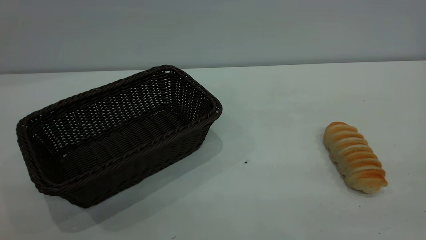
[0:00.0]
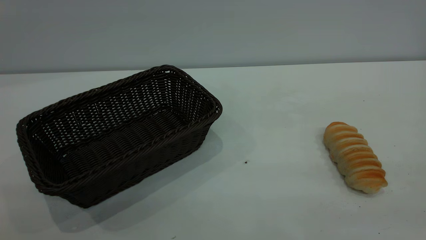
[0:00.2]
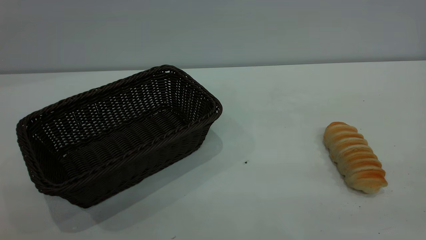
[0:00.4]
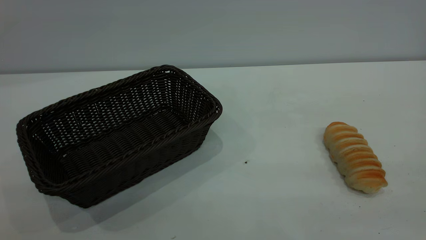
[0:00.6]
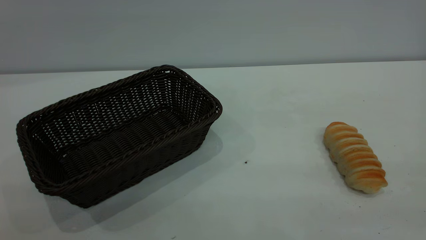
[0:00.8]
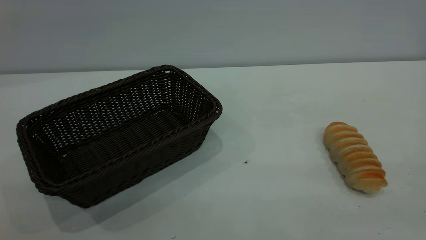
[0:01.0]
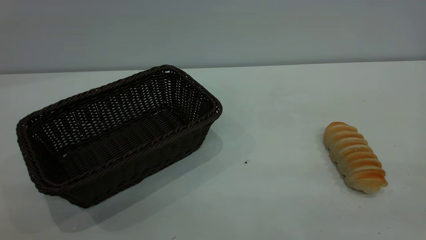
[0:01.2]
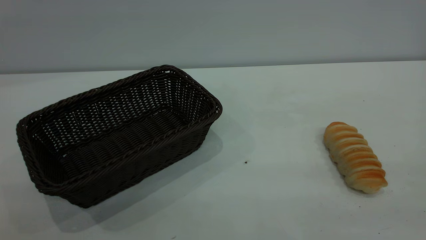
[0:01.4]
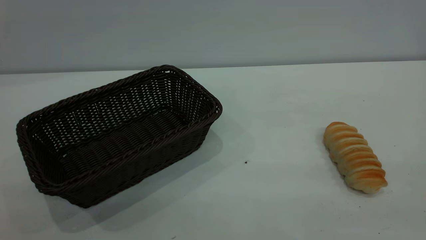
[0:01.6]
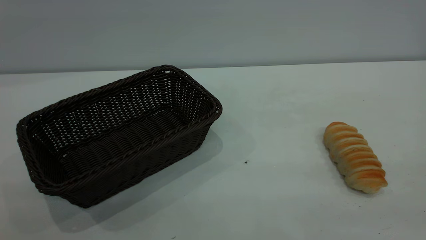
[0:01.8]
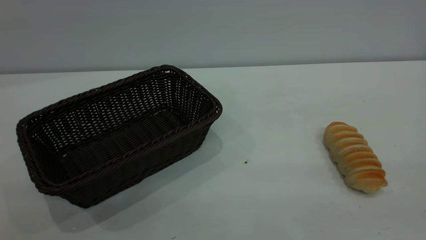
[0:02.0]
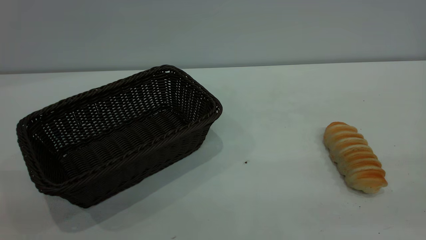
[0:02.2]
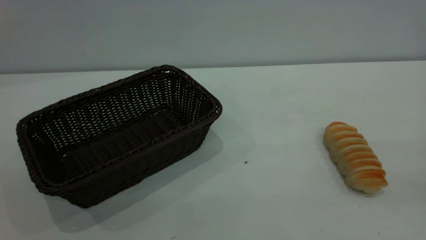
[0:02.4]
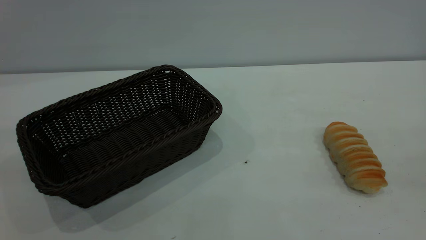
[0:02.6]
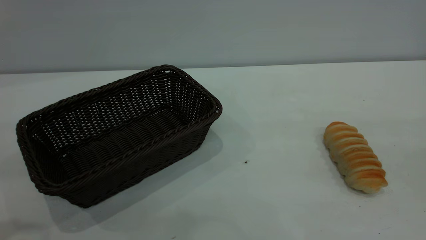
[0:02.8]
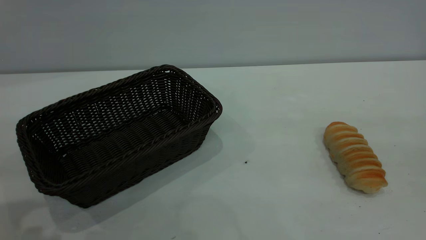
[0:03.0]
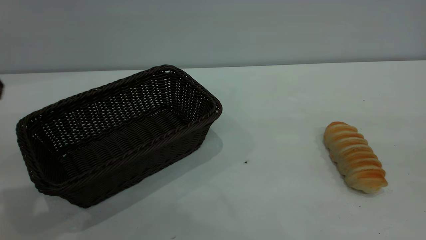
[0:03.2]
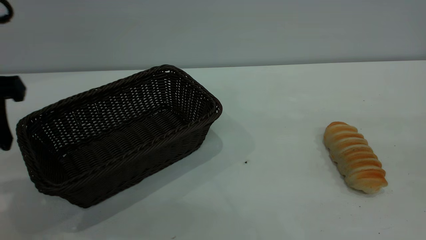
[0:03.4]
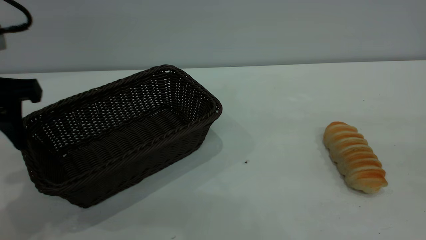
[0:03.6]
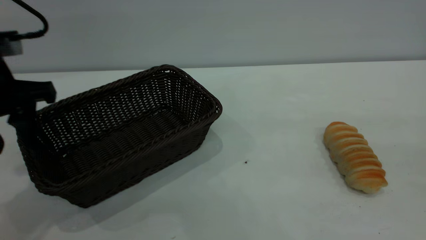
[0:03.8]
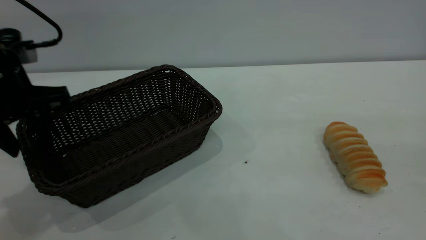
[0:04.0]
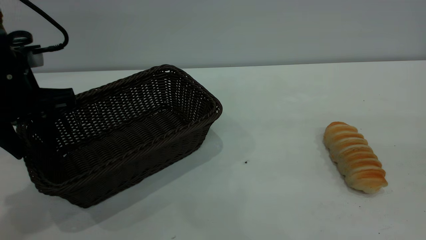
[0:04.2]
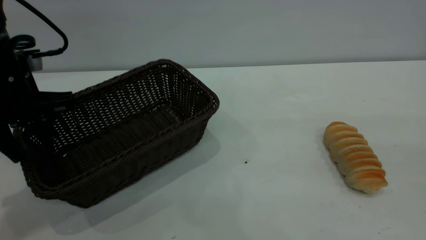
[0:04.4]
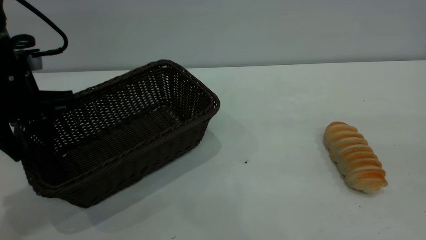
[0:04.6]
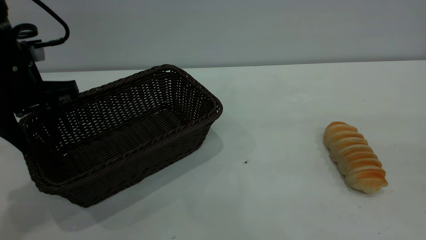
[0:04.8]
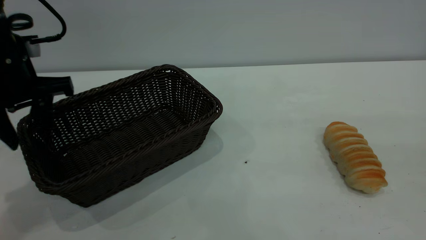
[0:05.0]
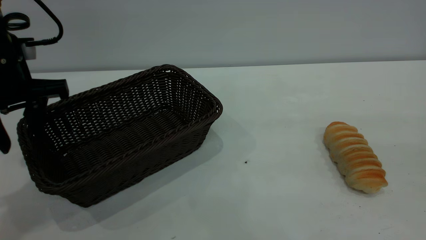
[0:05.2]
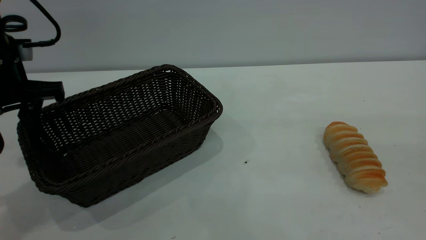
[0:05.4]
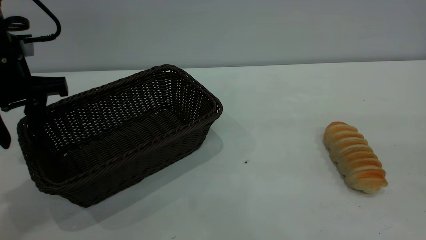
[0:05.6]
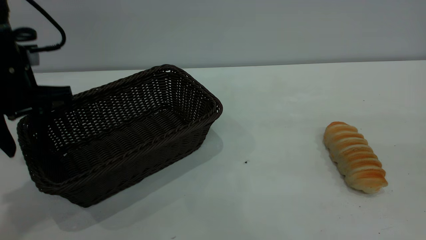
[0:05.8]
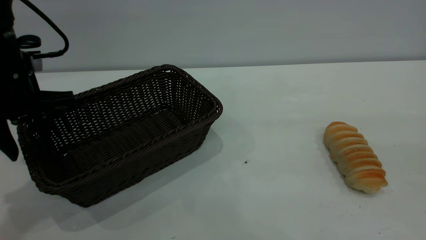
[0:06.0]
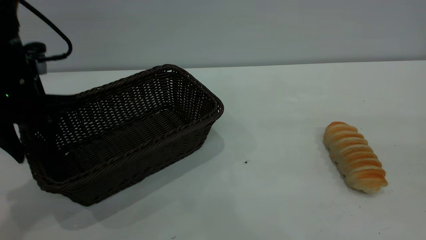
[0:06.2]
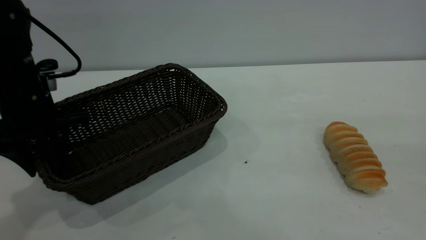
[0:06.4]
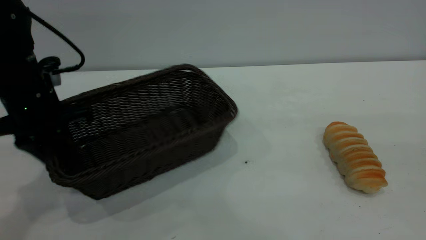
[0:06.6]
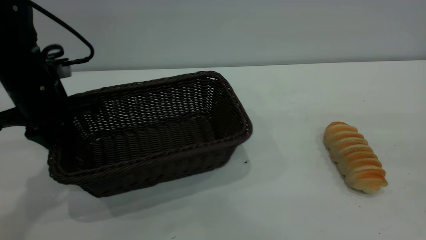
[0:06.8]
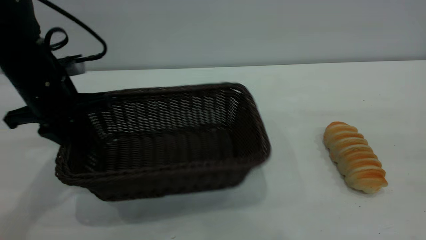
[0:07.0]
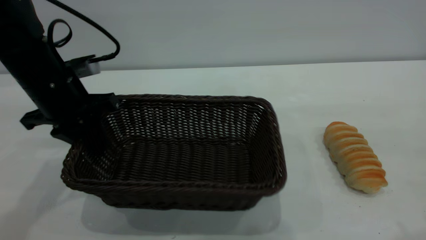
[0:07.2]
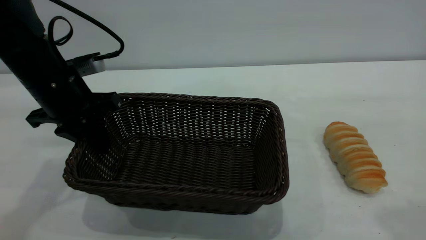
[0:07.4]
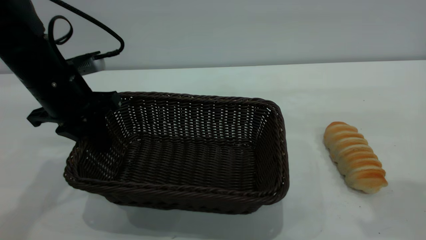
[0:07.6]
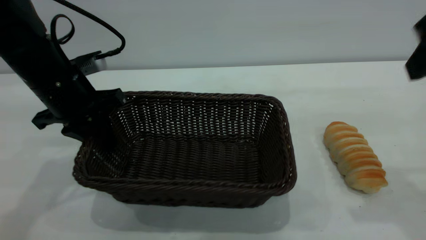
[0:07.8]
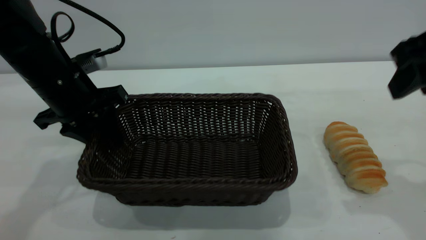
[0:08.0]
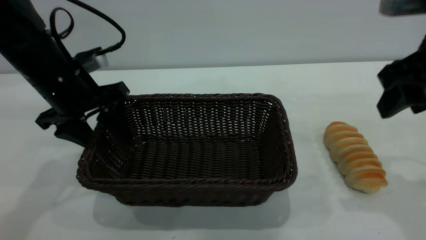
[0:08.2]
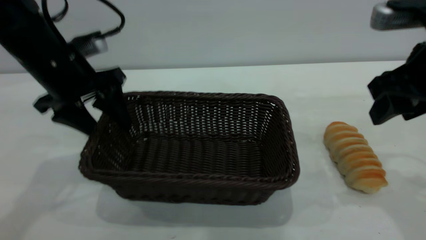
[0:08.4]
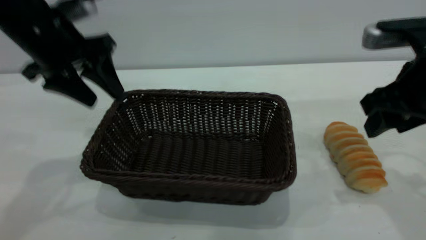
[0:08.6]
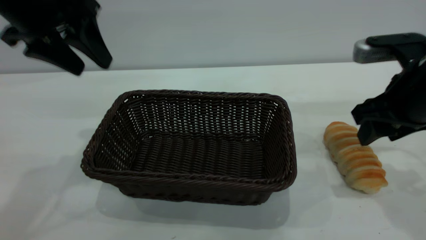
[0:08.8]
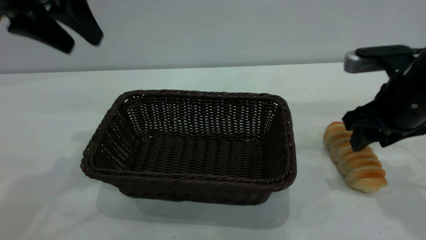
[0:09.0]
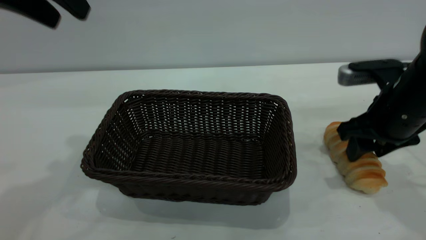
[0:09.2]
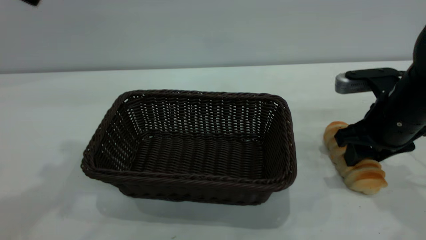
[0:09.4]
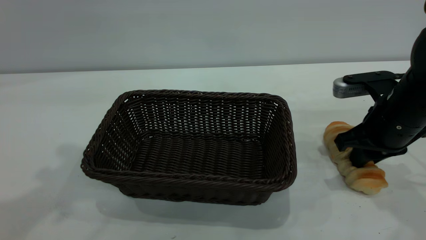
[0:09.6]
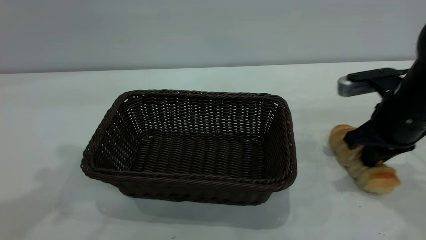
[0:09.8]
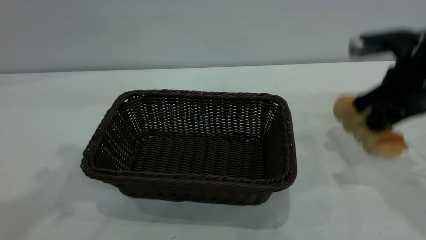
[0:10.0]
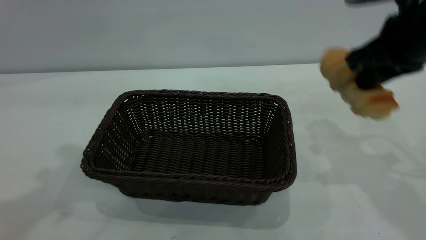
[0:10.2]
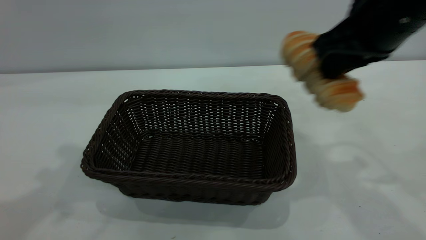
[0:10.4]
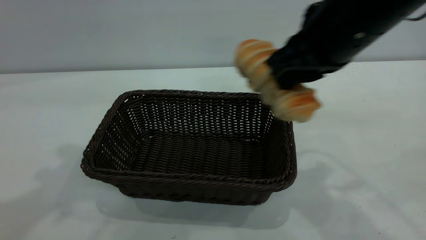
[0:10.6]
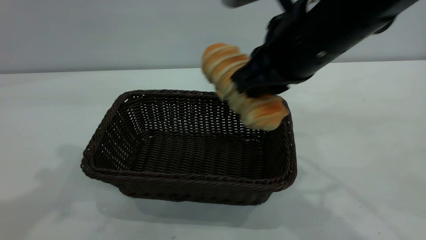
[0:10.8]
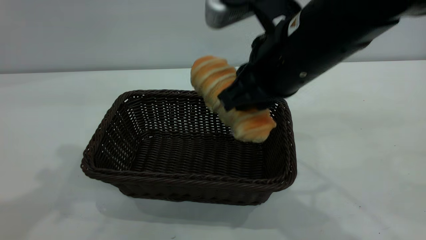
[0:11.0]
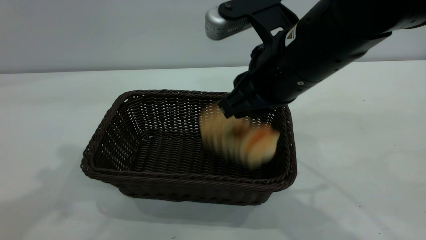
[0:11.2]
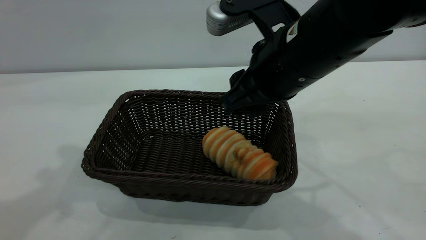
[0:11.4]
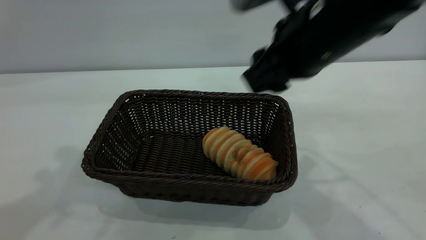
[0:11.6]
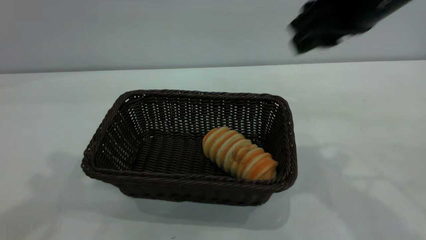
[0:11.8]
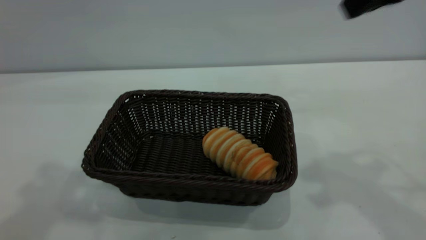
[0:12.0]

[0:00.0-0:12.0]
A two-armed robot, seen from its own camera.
Task of the whole recording: One hand grasps the black basket and places it in the middle of the table, while the other hand picks up the long bread and puts it into the black basket.
Step, 0:00.0 to 0:08.8: Move the basket to the center of view.
Step, 0:10.2 to 0:11.6: place the bread into the basket.
0:00.0 to 0:01.6: Neither gripper changes place.
0:03.0 to 0:04.4: The left gripper is displaced forward and downward by some 15 cm.
0:04.4 to 0:06.0: The grippers move only a little.
0:06.0 to 0:07.6: The left gripper closes up; the right gripper heads forward, covering some 10 cm.
0:07.6 to 0:09.0: The right gripper heads downward and forward, covering about 20 cm; the left gripper is displaced upward by about 15 cm, and opens up.
0:09.0 to 0:10.4: The left gripper goes about 5 cm upward; the right gripper travels upward and to the left by roughly 15 cm, and closes up.
0:10.4 to 0:12.0: Both grippers move upward, about 5 cm. The right gripper travels to the left and back again, some 10 cm each way, and opens its fingers.

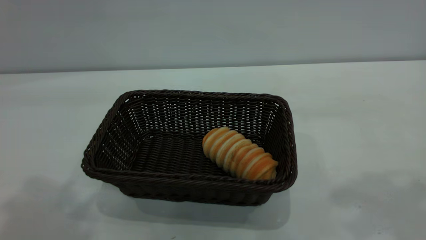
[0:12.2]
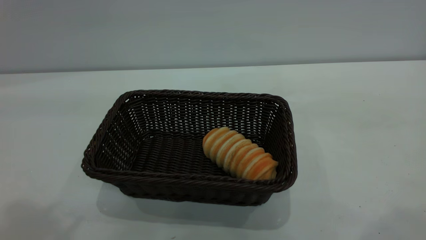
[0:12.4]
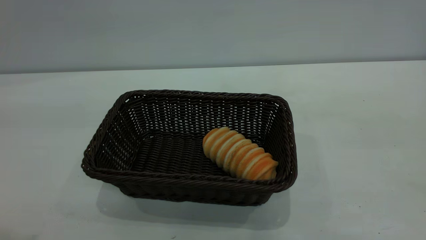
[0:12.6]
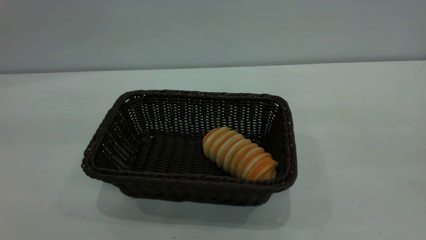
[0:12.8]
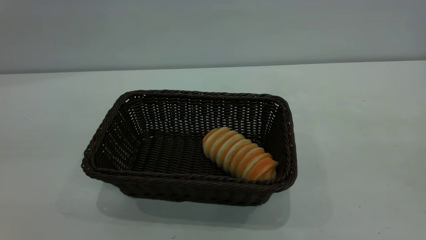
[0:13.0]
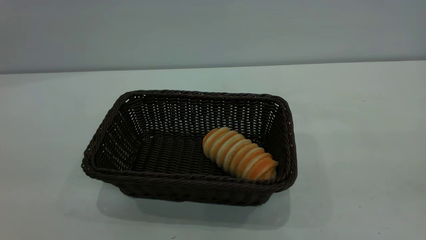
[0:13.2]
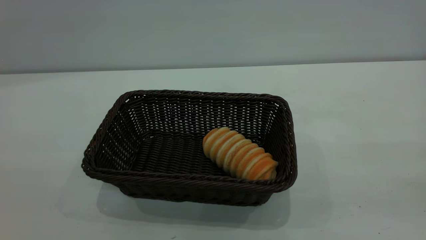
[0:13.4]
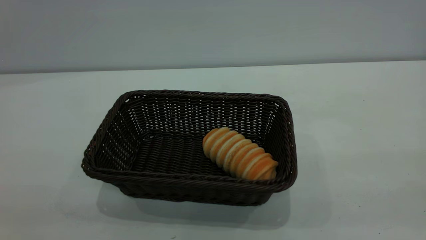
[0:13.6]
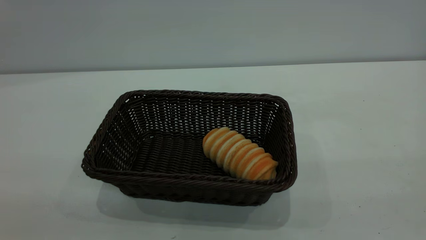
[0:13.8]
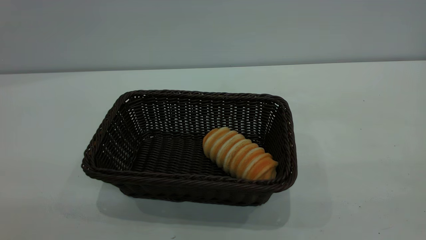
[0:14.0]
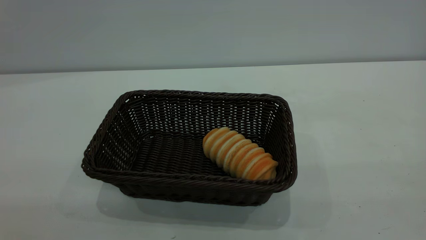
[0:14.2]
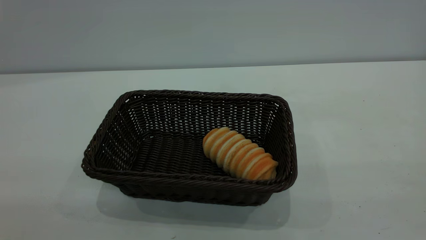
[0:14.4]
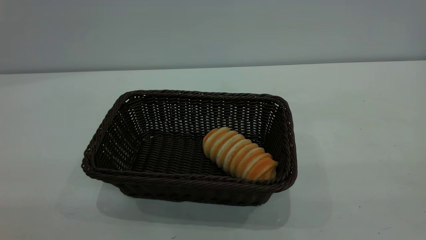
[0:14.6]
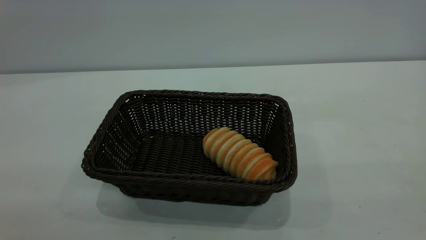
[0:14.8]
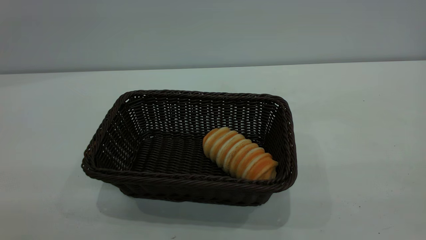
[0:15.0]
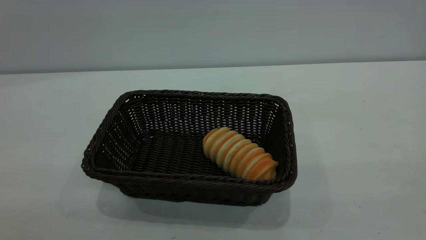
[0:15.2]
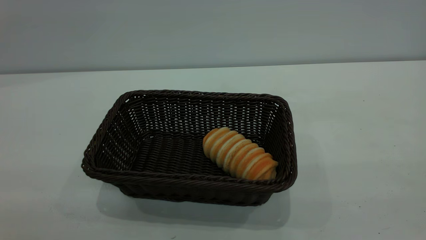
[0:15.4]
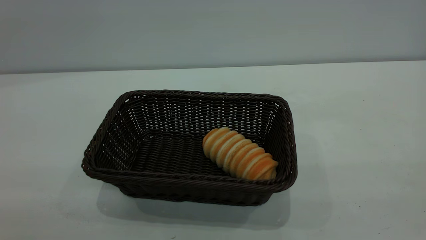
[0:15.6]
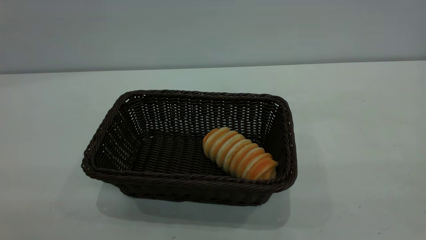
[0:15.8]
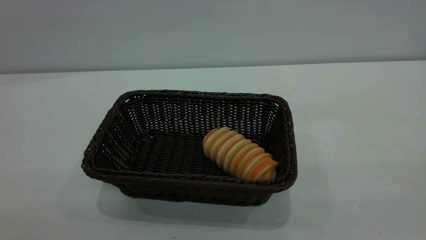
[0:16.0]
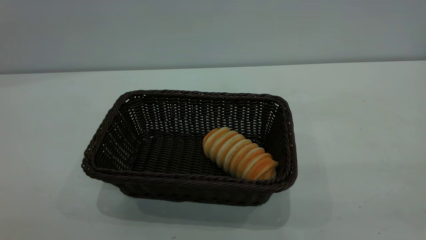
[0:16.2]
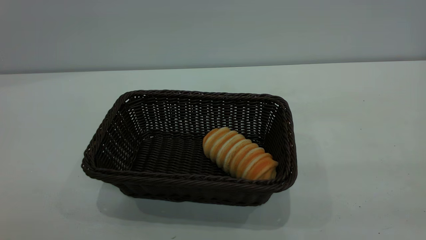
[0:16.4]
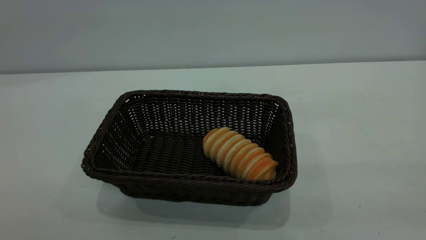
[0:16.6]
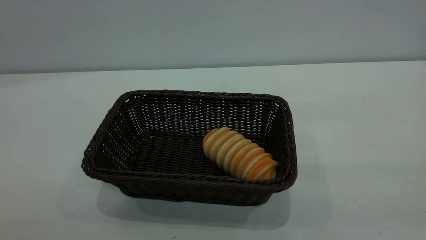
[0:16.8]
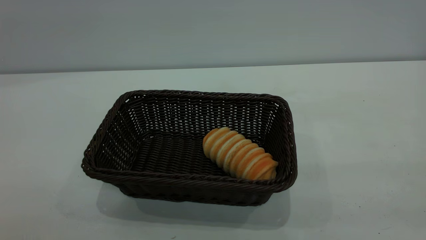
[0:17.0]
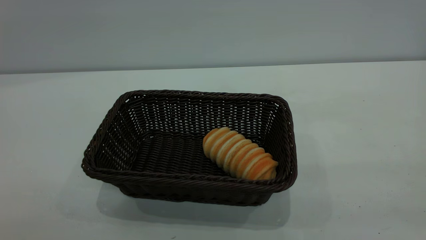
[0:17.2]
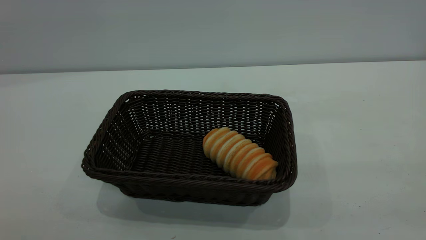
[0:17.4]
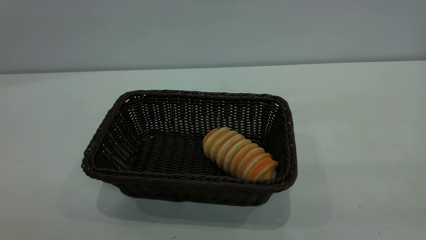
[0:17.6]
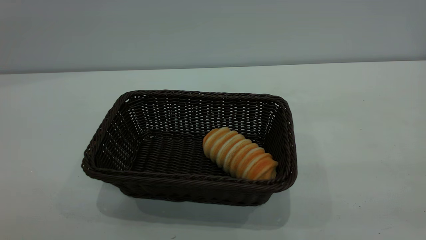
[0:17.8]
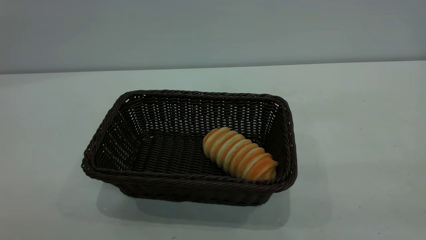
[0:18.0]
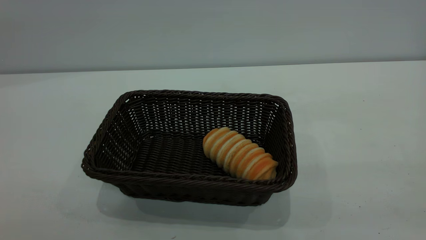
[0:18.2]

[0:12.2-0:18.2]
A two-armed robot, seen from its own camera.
Task of the whole recording: One hand grasps the black basket and places it in the middle of the table, while the other hand picks up the long bread and puts it into the black basket.
0:16.6 to 0:18.2: Neither gripper changes place.
